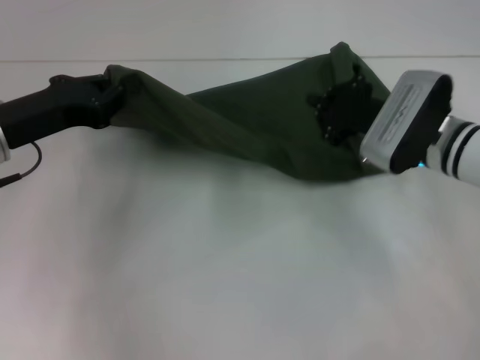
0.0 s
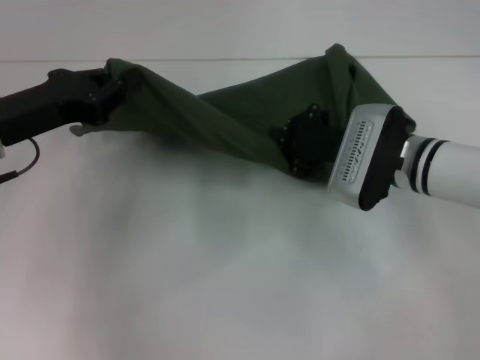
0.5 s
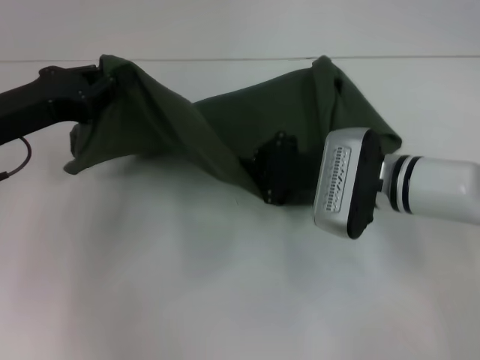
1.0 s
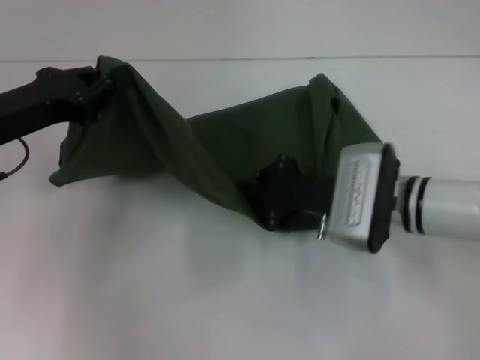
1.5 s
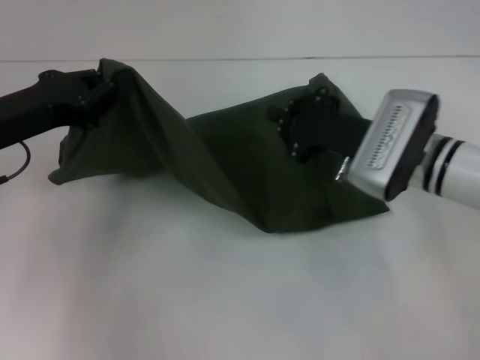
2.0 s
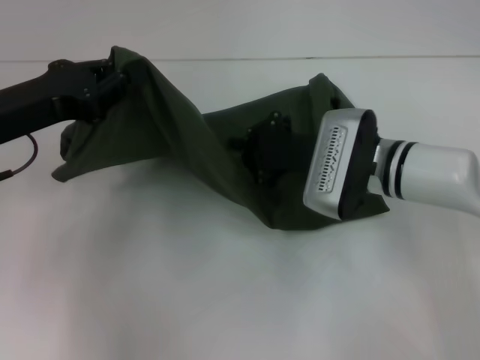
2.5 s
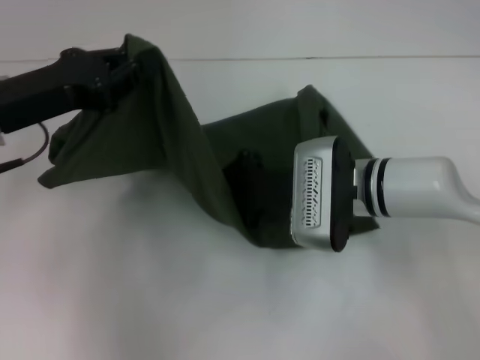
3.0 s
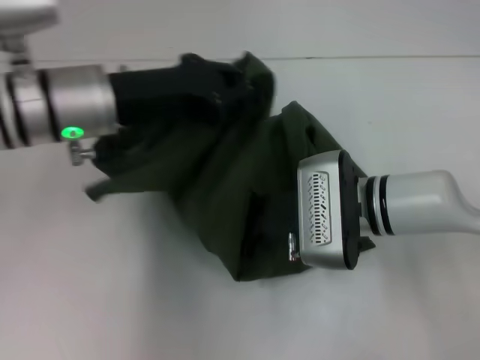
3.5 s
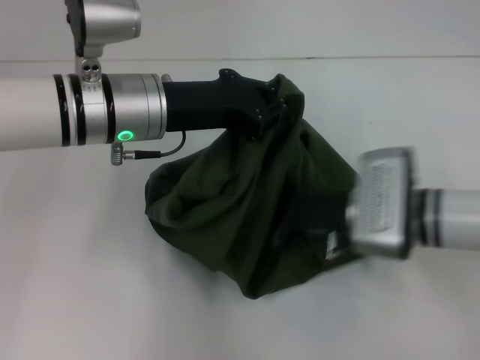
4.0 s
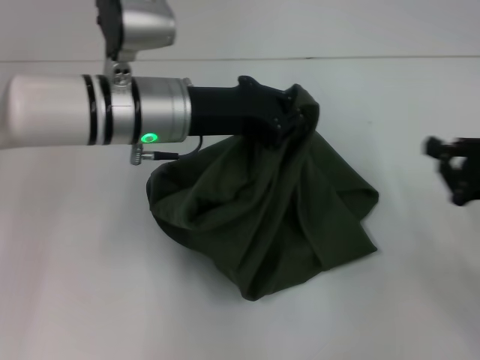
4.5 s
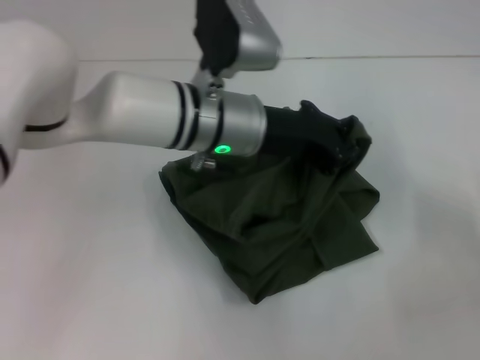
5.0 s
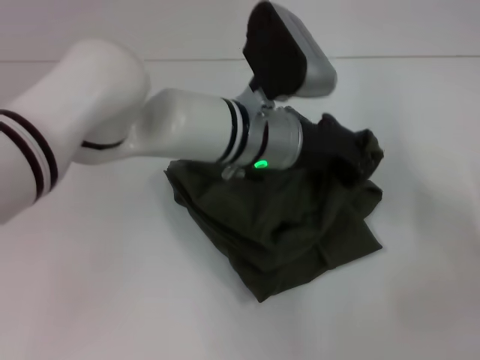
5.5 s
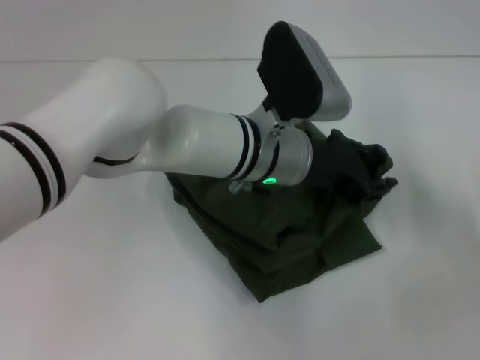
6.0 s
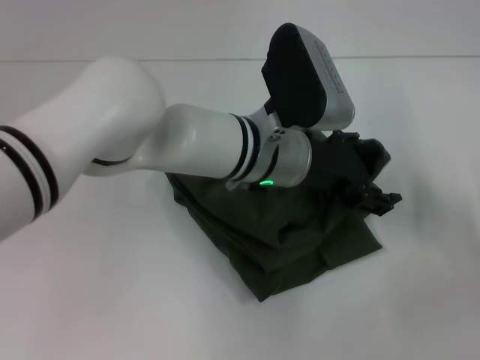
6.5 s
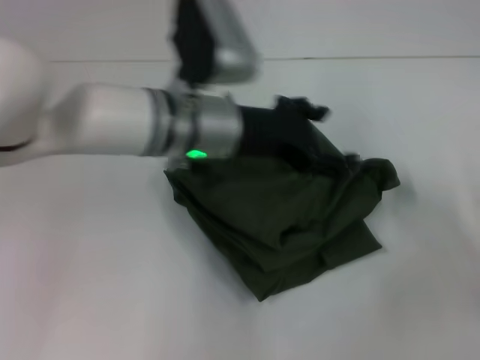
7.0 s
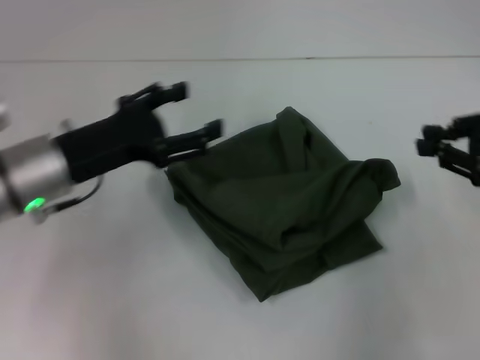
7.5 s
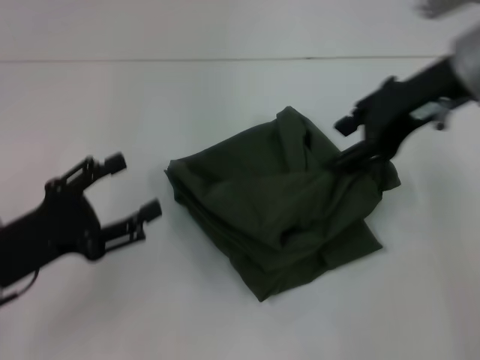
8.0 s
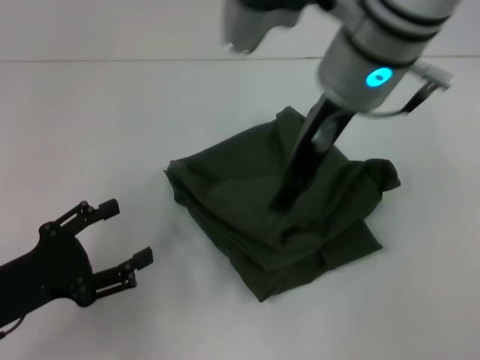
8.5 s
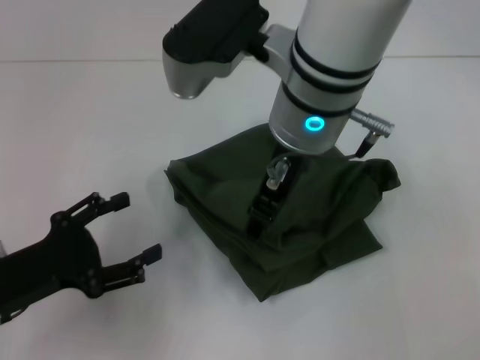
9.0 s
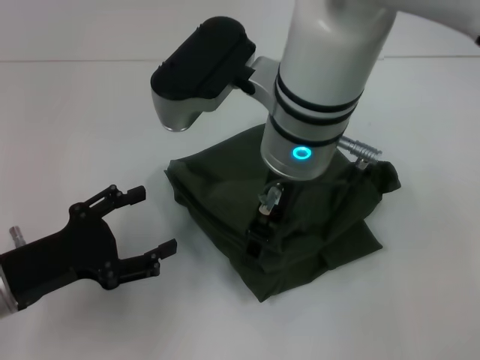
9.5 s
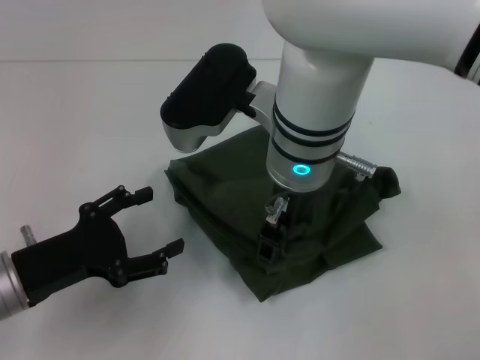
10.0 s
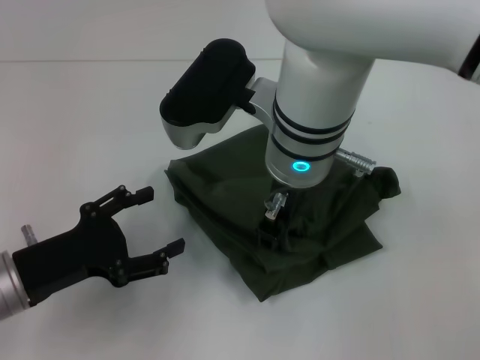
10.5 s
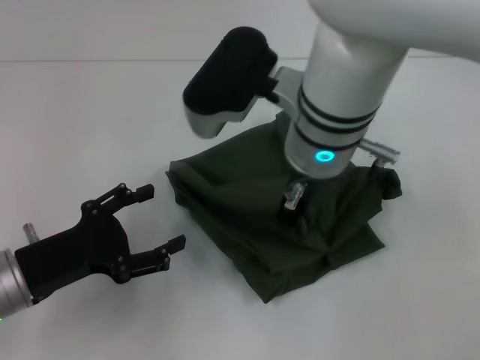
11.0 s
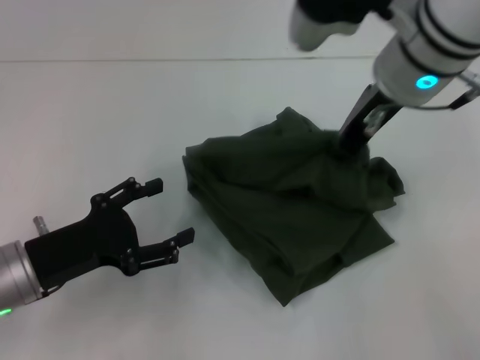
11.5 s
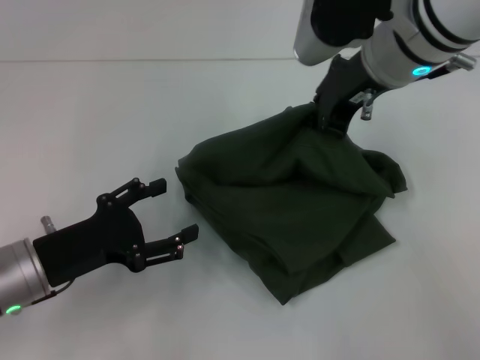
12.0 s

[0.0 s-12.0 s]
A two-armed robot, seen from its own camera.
Step, 0.0 to 7.0 s: Fold the clothes with your left hand.
2.0 to 4.0 s: The left gripper goes approximately 15 cm to the right, while the right gripper ends up approximately 5 cm from where it was.
4.0 to 6.0 s: The left gripper moves to the right, some 15 cm. Meanwhile the right gripper shifts about 25 cm to the right.
6.0 to 8.0 s: The right gripper moves to the left, upward and forward, roughly 30 cm, and opens up. The left gripper goes approximately 30 cm to the left and backward, and opens.
8.0 to 10.0 s: The right gripper heads to the left and downward, covering roughly 15 cm.
10.0 to 12.0 s: The right gripper heads to the right and forward, covering roughly 10 cm, and closes up.

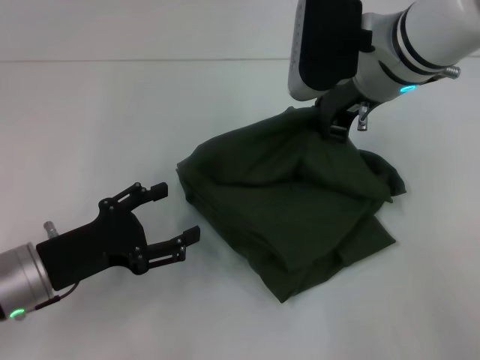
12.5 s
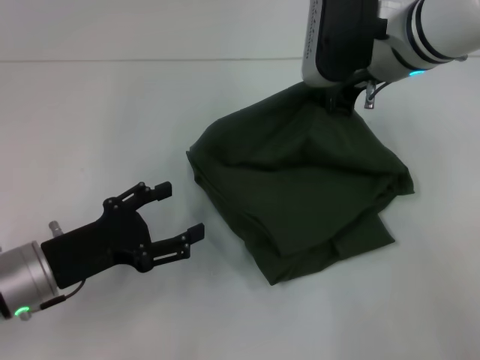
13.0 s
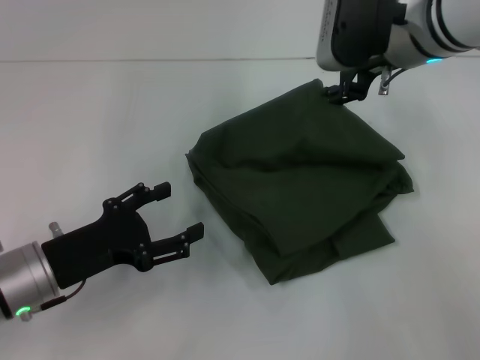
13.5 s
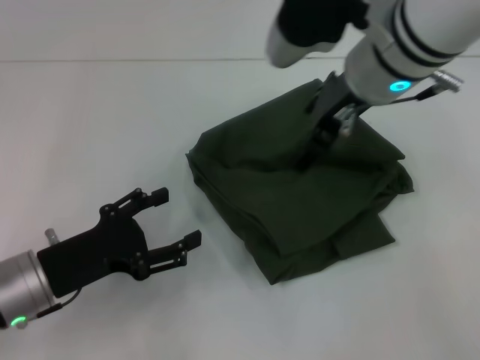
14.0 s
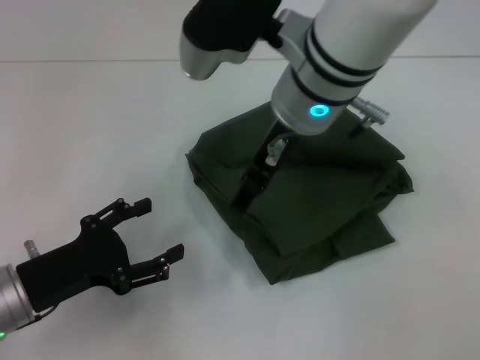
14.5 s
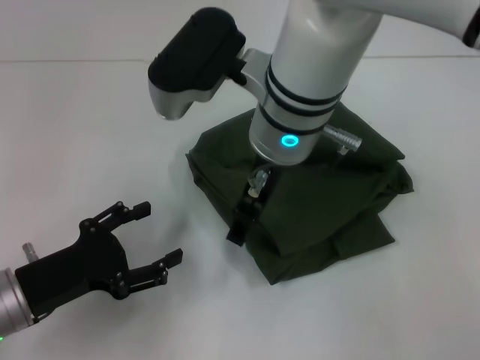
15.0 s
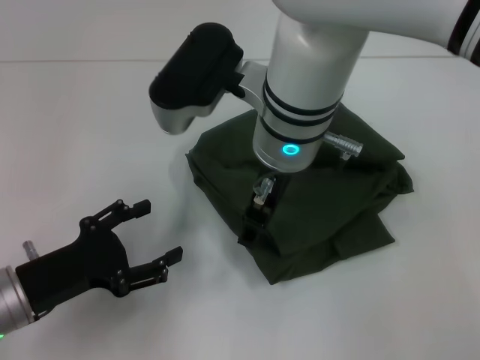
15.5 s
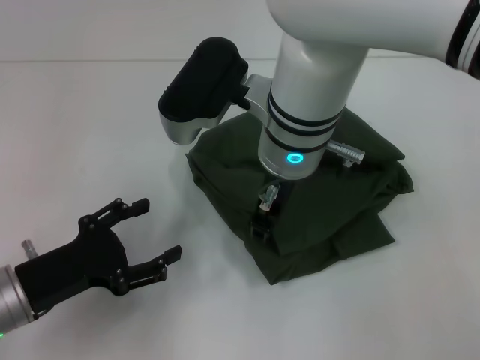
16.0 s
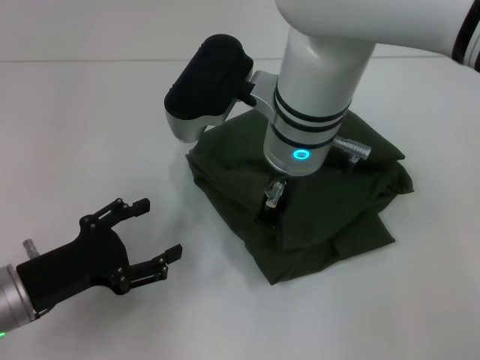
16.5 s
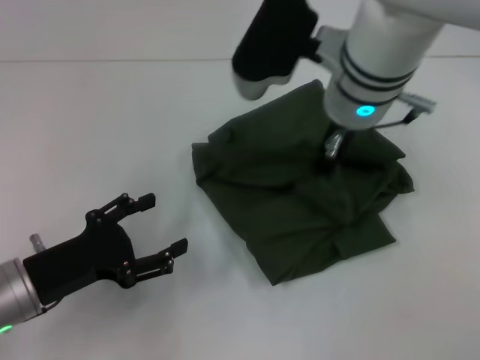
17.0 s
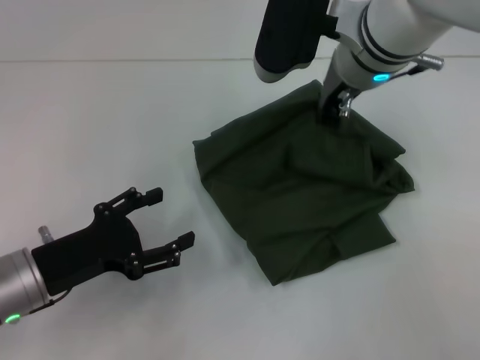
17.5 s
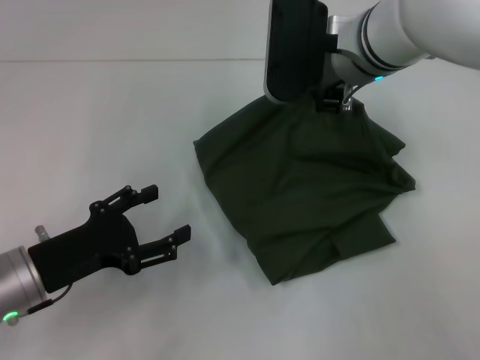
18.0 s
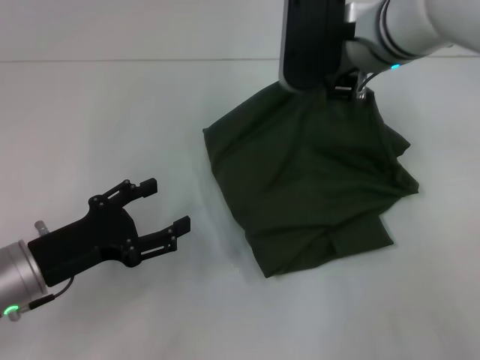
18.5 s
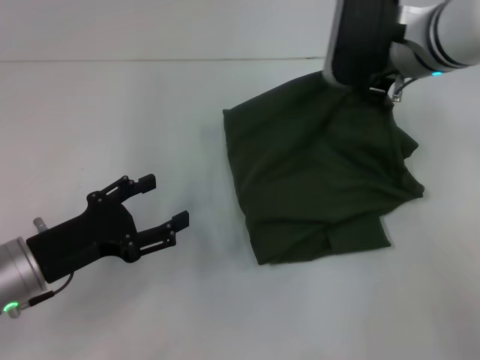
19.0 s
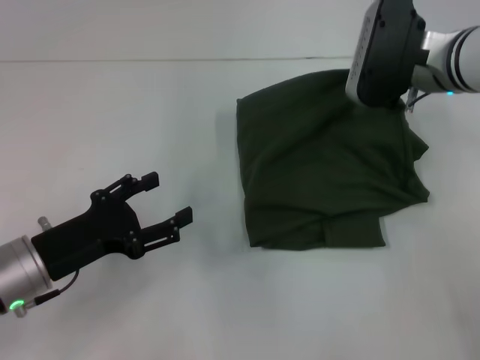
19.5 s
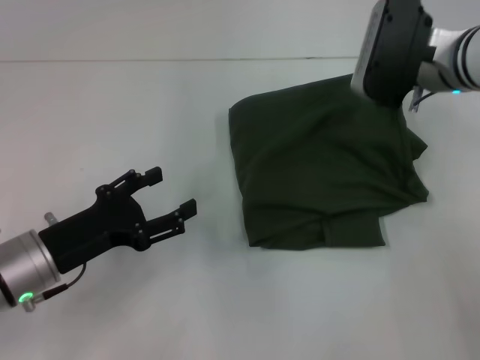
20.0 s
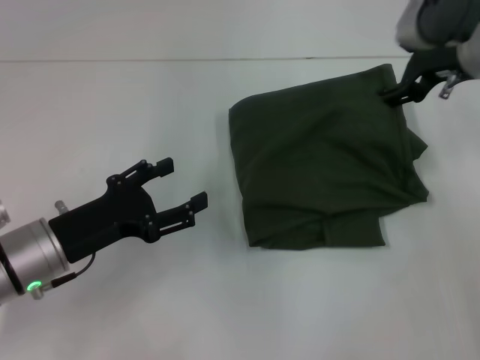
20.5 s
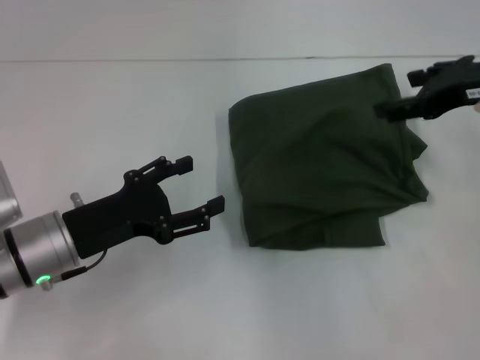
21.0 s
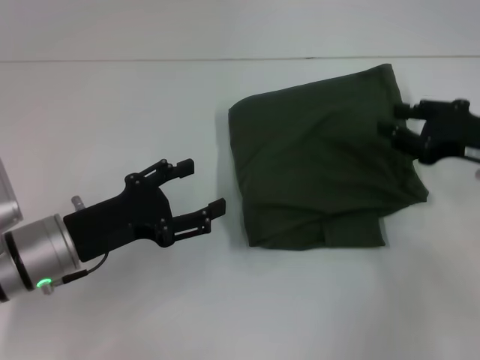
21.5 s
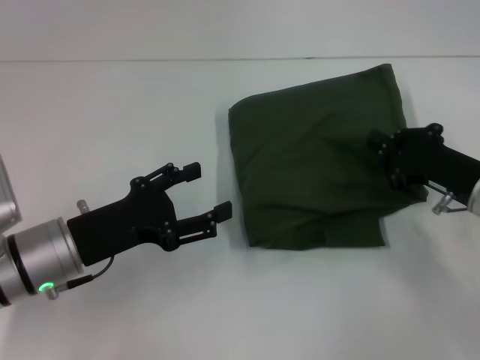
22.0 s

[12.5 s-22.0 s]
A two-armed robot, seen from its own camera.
12.5 to 14.5 s: The right gripper goes about 10 cm to the left, and opens.
14.5 to 16.5 s: The right gripper closes up.
16.5 to 18.0 s: The right gripper heads to the right and forward, covering approximately 10 cm.
18.0 to 20.0 s: The right gripper is displaced to the right by about 10 cm.
20.0 to 22.0 s: The right gripper goes approximately 20 cm downward, backward and to the right, and opens, then closes again.

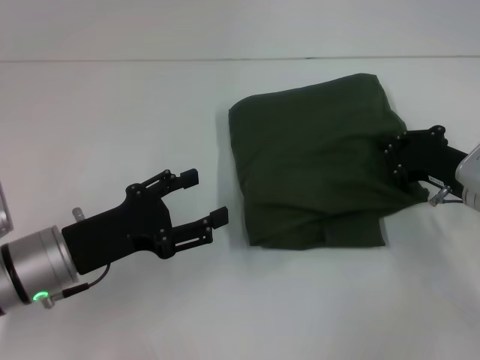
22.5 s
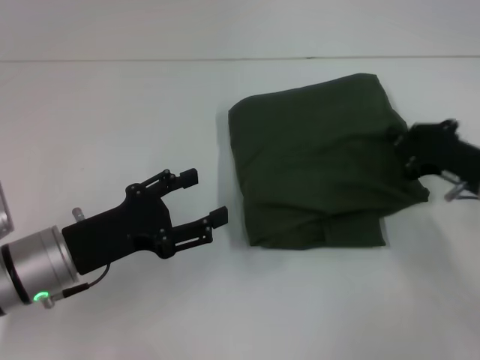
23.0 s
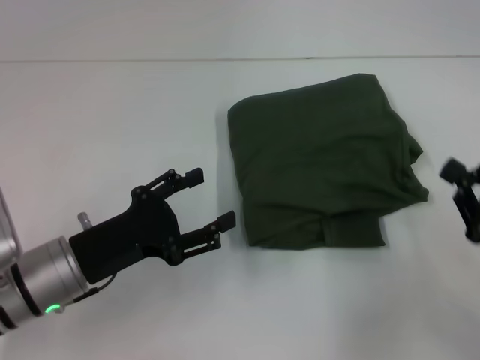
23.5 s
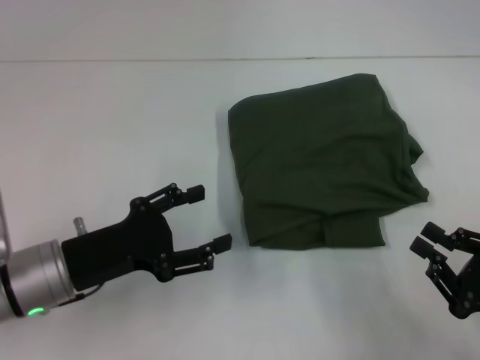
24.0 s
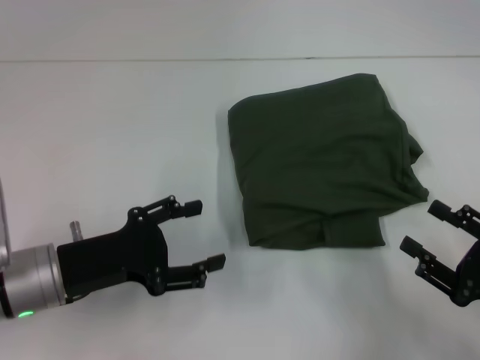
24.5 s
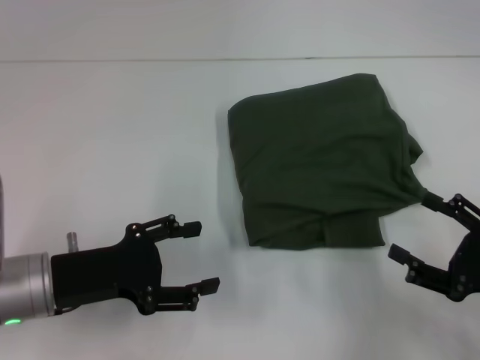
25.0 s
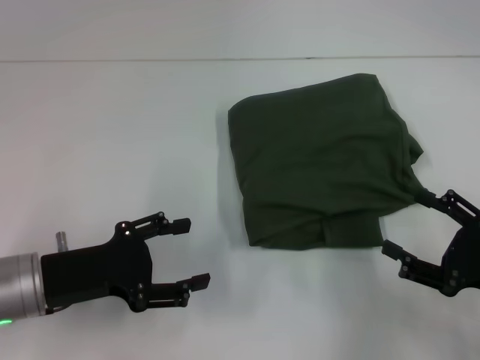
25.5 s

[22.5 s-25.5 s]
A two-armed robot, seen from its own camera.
22.5 to 24.0 s: The right gripper shifts about 15 cm backward.
24.0 to 25.5 s: The right gripper opens up.
